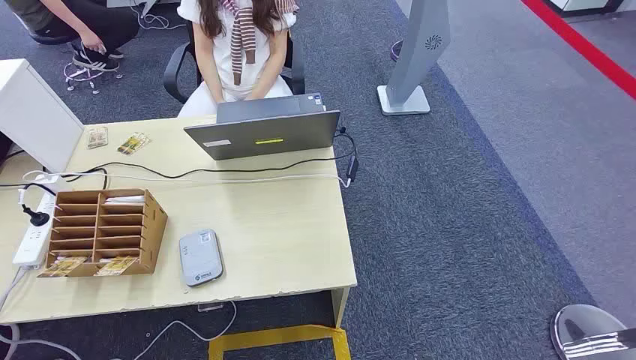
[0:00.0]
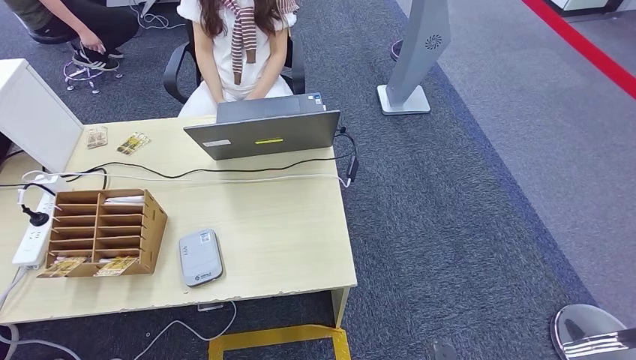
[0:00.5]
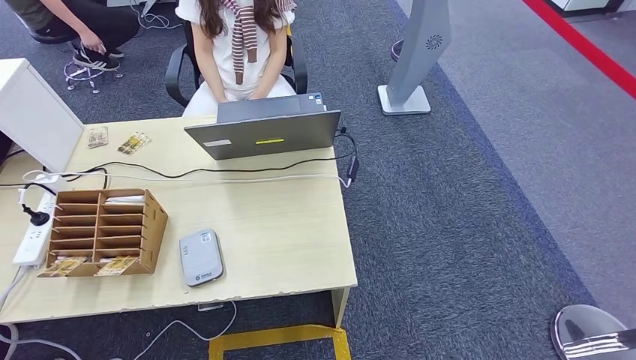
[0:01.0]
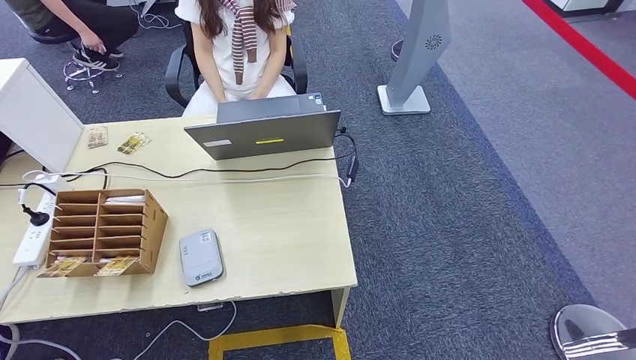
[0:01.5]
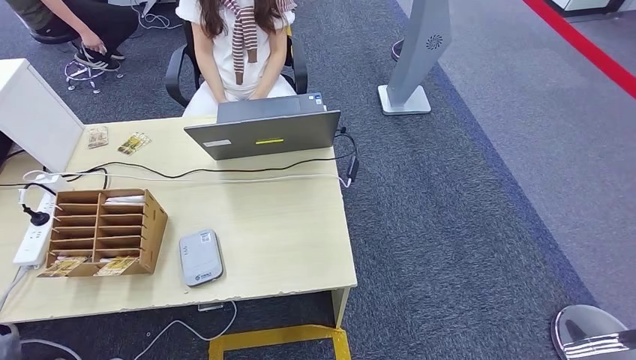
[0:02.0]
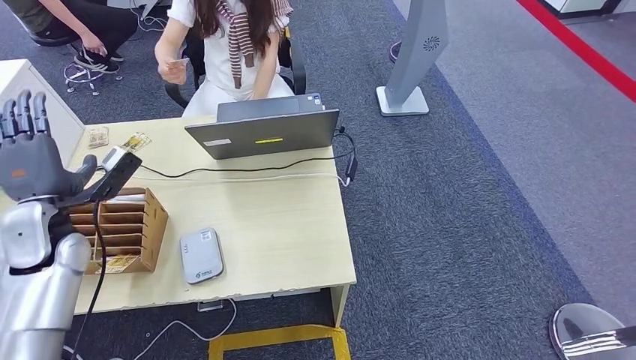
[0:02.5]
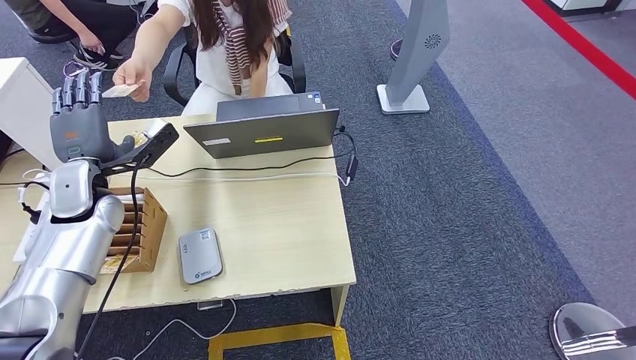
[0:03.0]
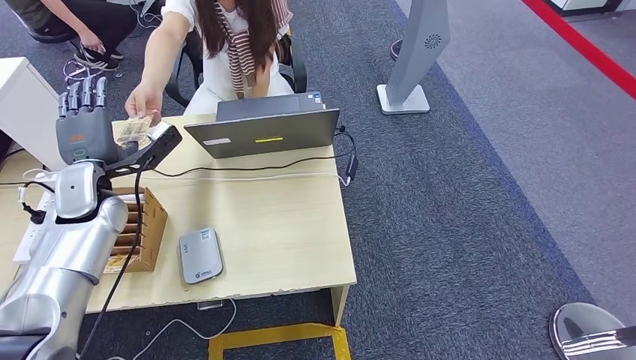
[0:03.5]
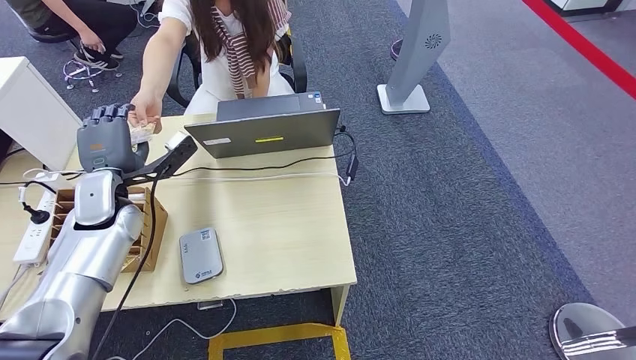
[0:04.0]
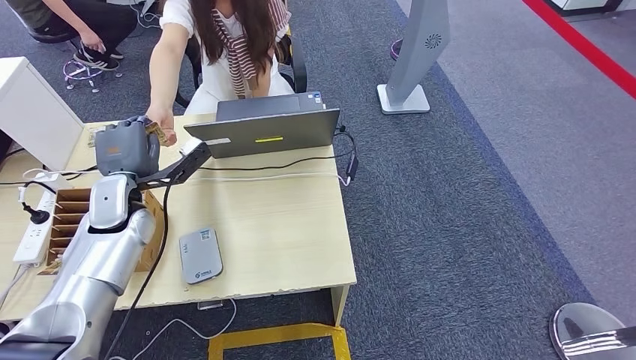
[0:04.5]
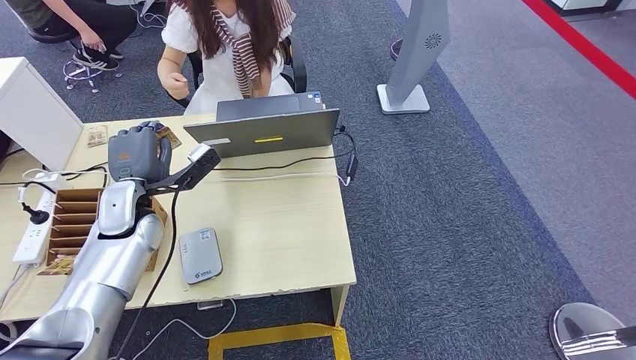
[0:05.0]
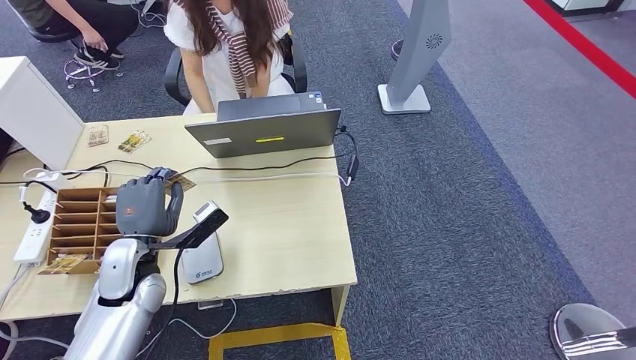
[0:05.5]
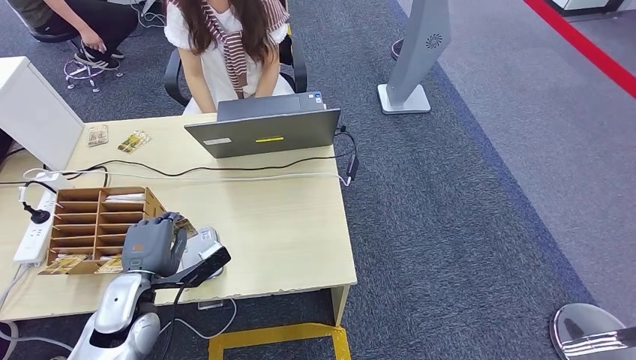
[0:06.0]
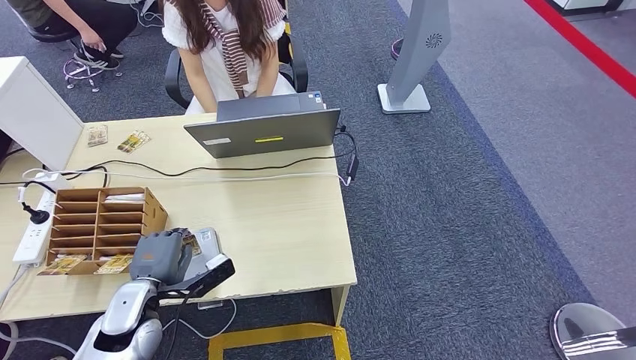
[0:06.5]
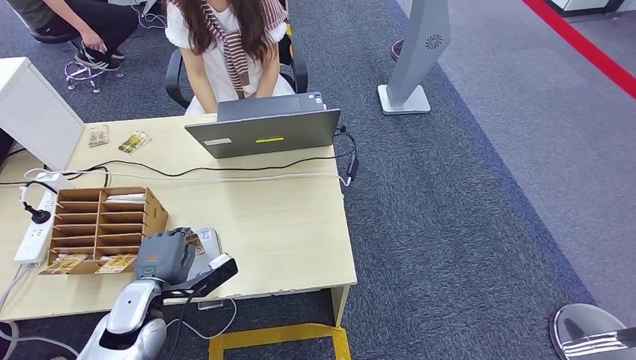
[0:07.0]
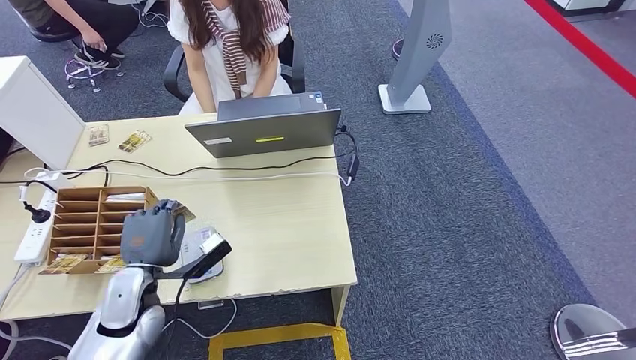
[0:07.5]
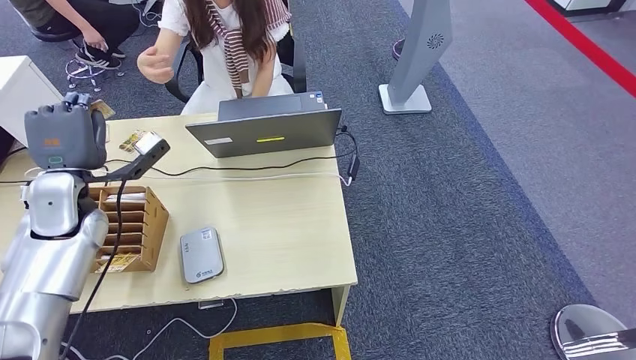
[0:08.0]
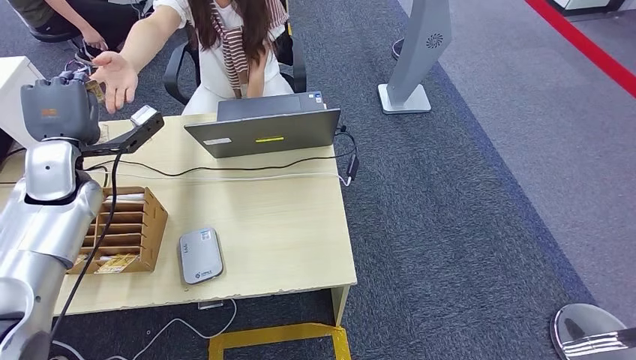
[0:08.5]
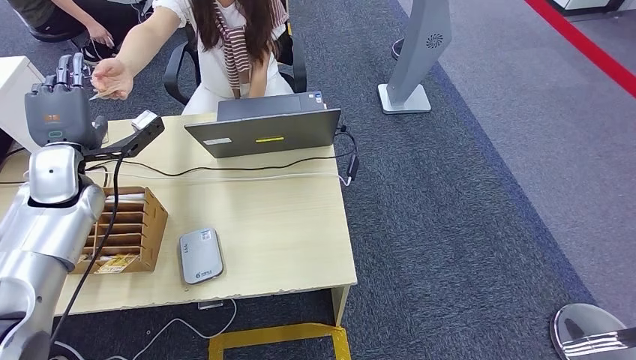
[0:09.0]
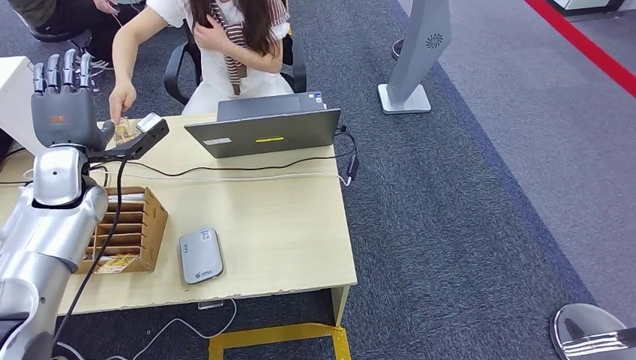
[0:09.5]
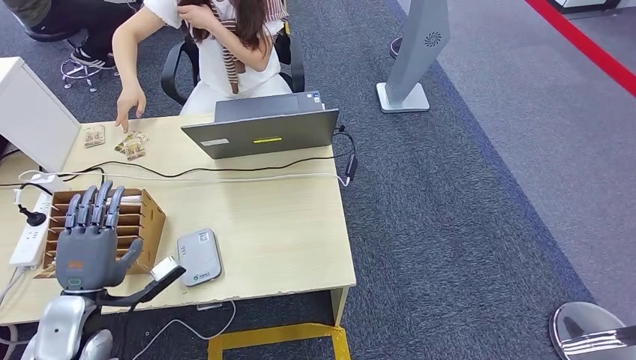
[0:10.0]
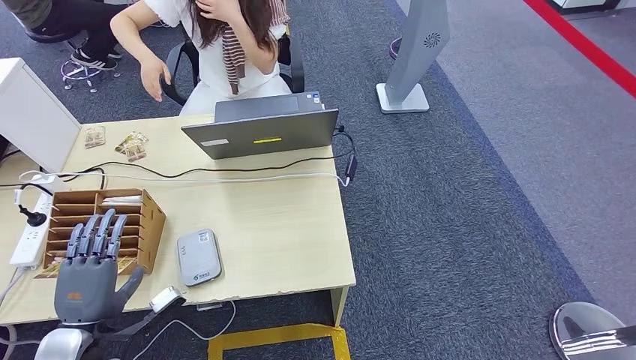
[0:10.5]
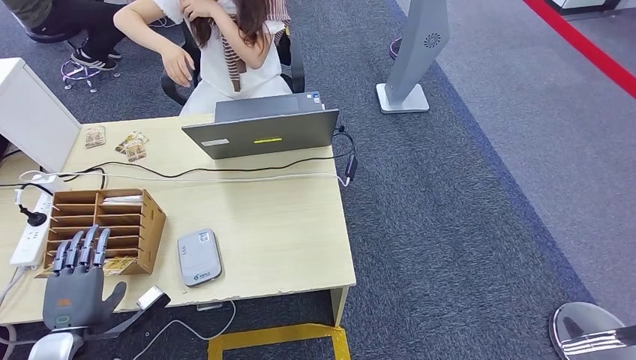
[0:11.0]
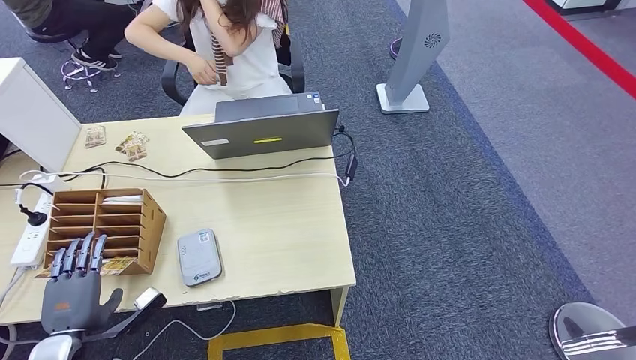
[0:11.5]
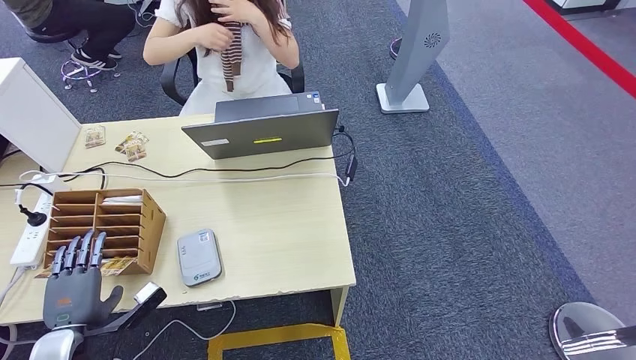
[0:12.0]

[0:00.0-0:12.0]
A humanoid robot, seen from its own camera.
Step, 0:00.0 to 0:03.0: Take the ID card from the person's hand.
Step, 0:03.5 to 0:07.5: Place the ID card on the card reader.
Step, 0:08.0 to 0:09.0: Hand the ID card to the person.
0:02.0 to 0:04.0: The left hand moves forward, about 30 cm.
0:04.0 to 0:06.0: The left hand heads backward and downward, covering approximately 20 cm.
0:06.0 to 0:08.0: The left hand shifts about 20 cm forward, upward and to the left.
0:10.0 to 0:12.0: The left hand travels downward by about 5 cm.

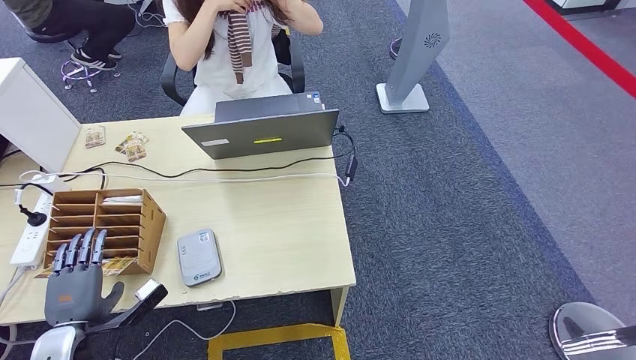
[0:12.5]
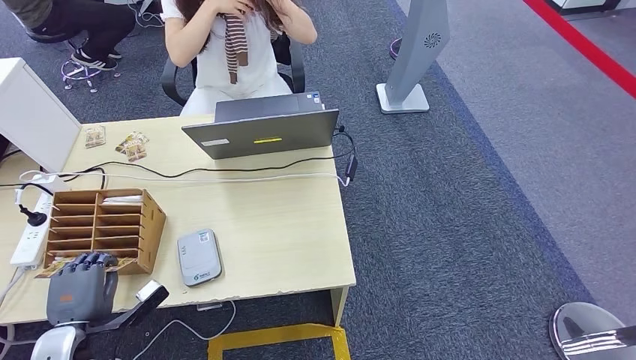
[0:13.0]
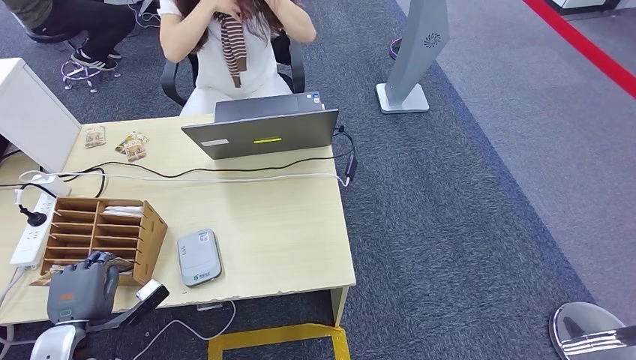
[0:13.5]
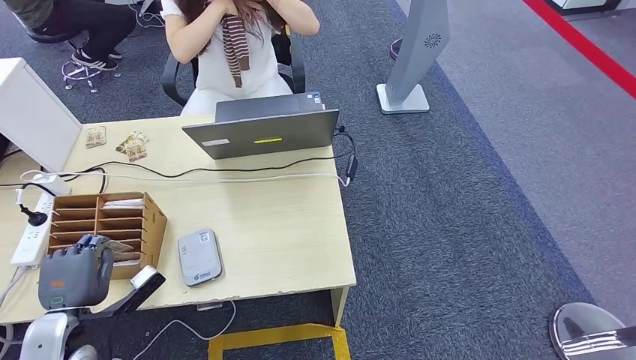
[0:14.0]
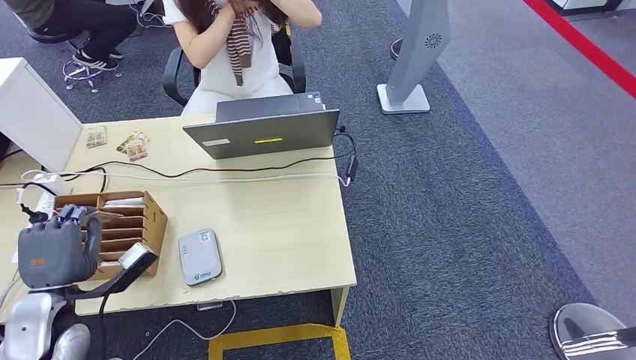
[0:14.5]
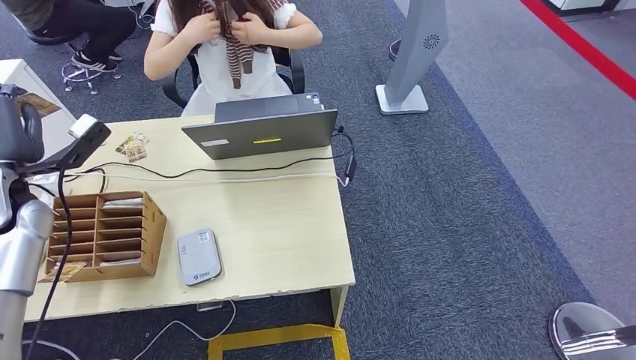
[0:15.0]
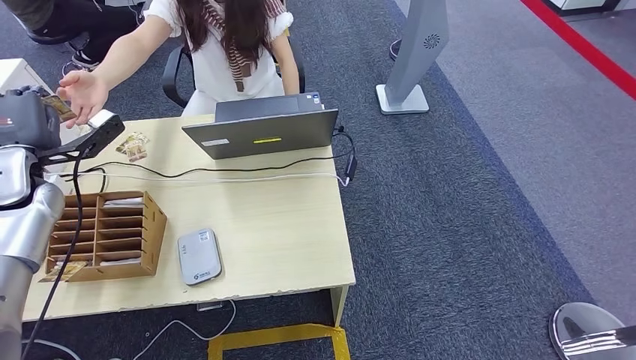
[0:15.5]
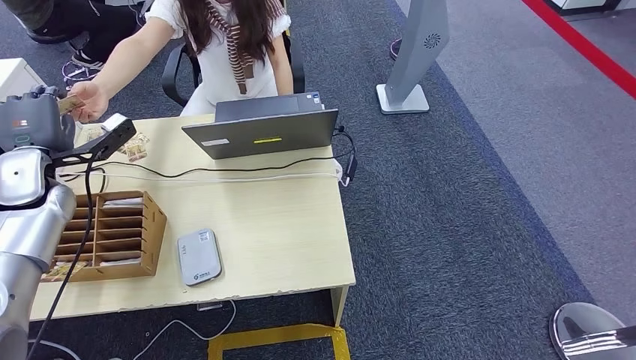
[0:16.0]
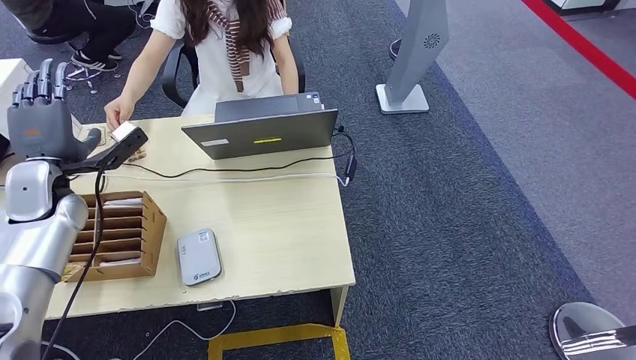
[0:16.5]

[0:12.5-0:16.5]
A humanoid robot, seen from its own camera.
Step, 0:14.5 to 0:16.0: Hand the room key to the person.
0:12.5 to 0:14.5: The left hand goes about 10 cm upward.
0:14.5 to 0:16.5: The left hand travels forward and upward by some 20 cm.
